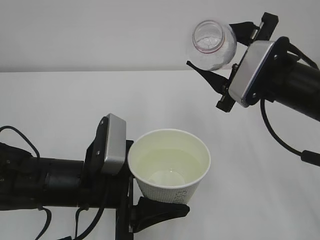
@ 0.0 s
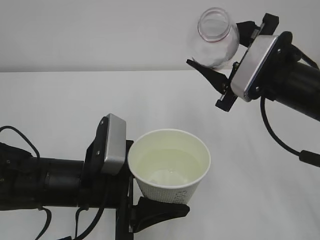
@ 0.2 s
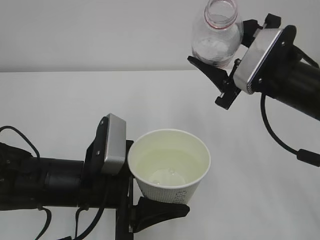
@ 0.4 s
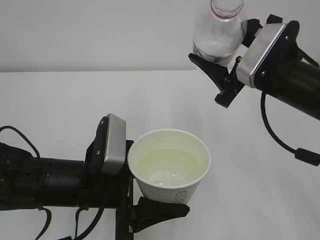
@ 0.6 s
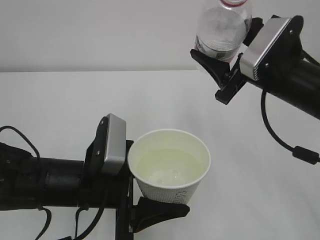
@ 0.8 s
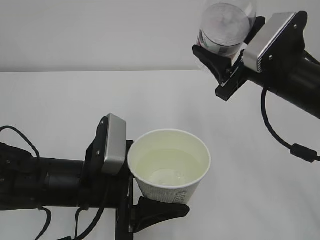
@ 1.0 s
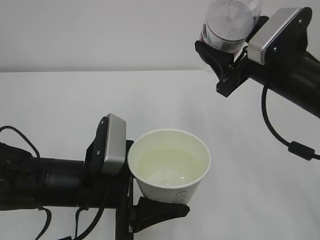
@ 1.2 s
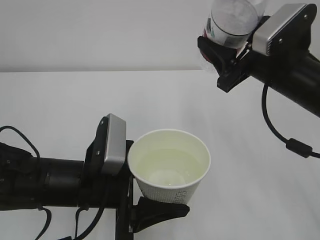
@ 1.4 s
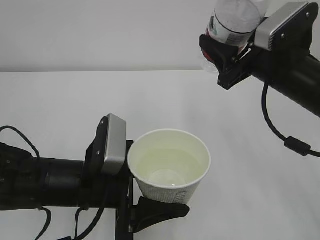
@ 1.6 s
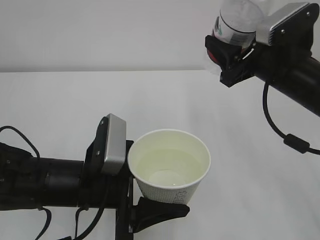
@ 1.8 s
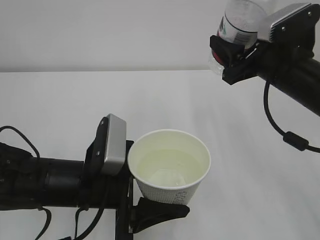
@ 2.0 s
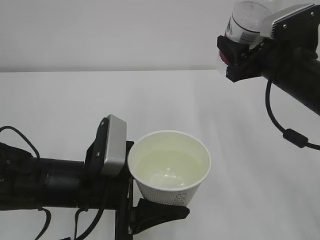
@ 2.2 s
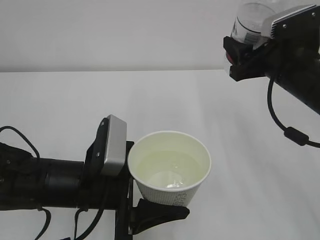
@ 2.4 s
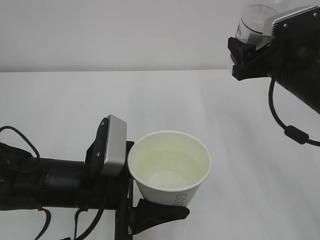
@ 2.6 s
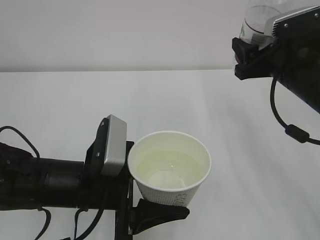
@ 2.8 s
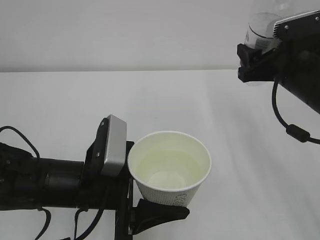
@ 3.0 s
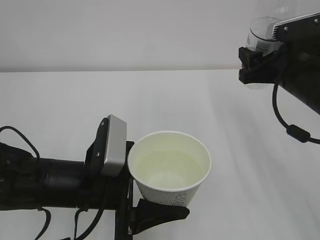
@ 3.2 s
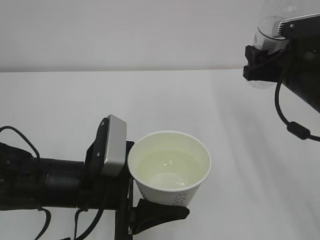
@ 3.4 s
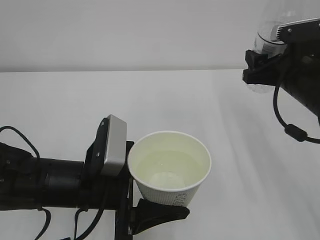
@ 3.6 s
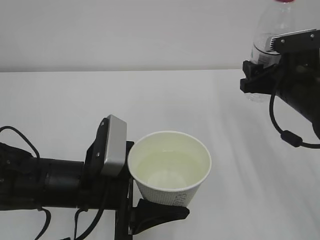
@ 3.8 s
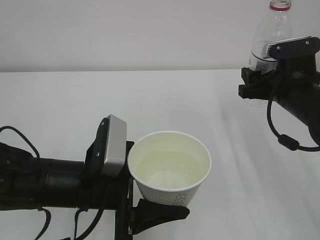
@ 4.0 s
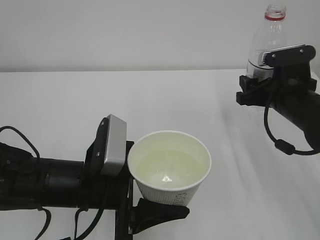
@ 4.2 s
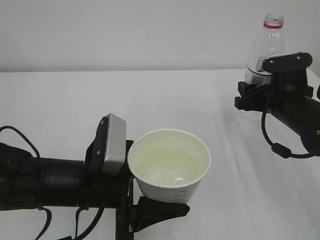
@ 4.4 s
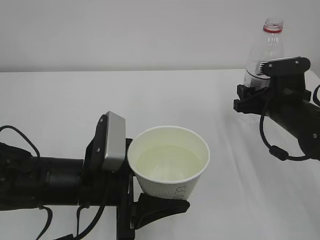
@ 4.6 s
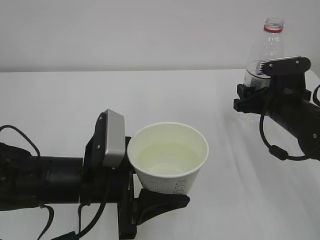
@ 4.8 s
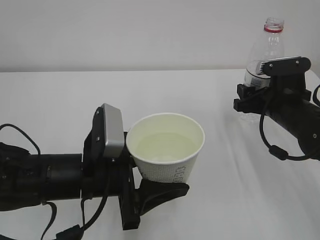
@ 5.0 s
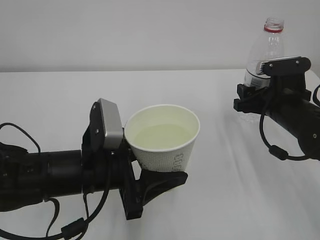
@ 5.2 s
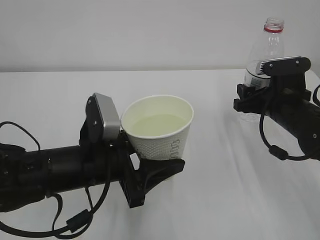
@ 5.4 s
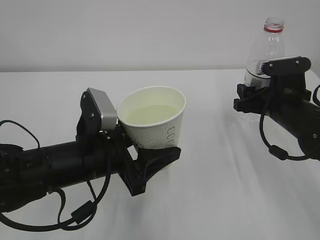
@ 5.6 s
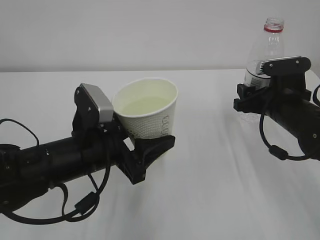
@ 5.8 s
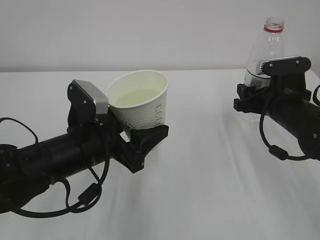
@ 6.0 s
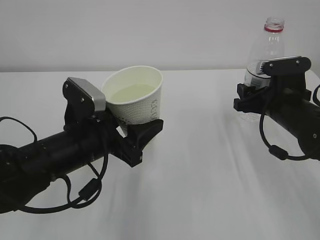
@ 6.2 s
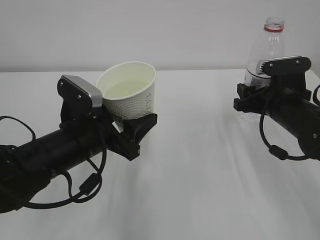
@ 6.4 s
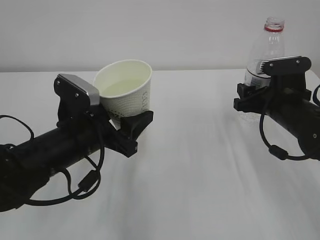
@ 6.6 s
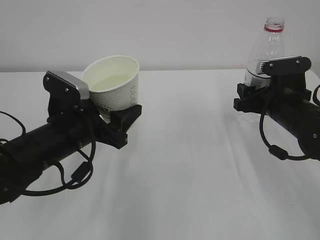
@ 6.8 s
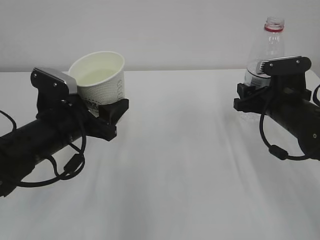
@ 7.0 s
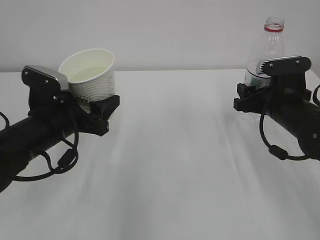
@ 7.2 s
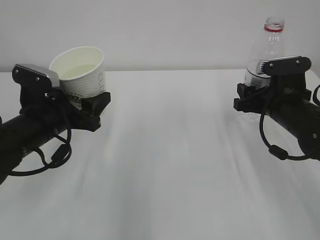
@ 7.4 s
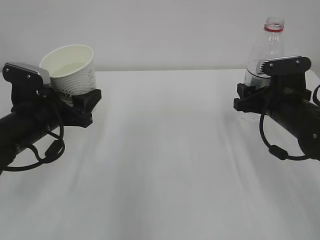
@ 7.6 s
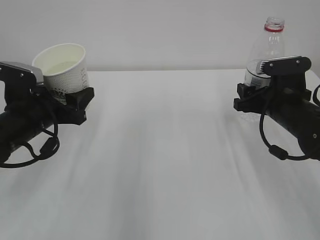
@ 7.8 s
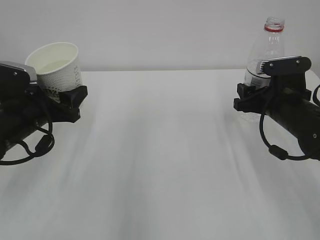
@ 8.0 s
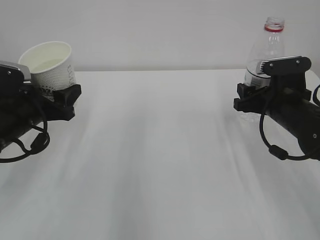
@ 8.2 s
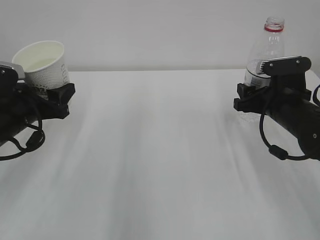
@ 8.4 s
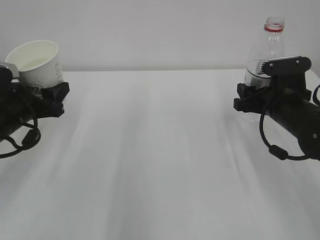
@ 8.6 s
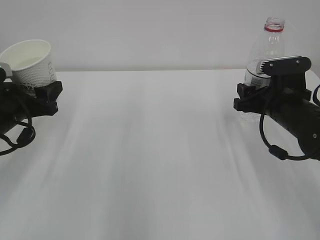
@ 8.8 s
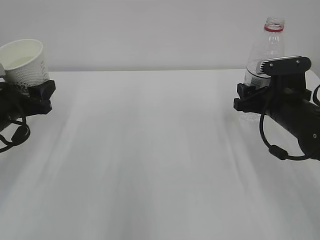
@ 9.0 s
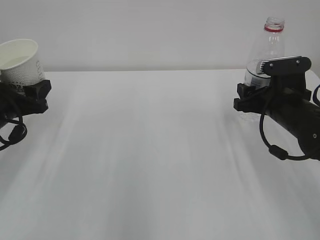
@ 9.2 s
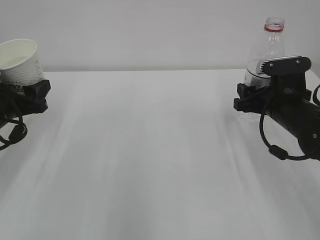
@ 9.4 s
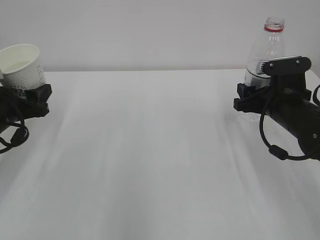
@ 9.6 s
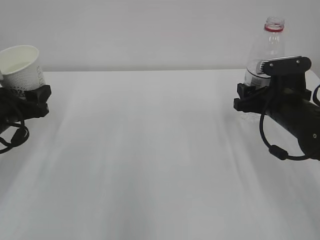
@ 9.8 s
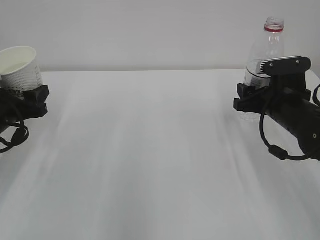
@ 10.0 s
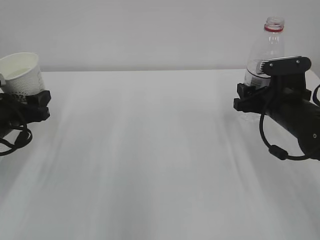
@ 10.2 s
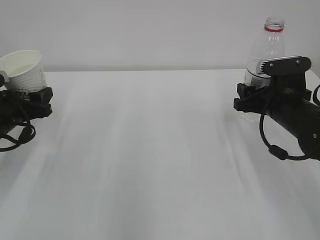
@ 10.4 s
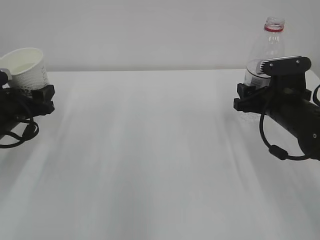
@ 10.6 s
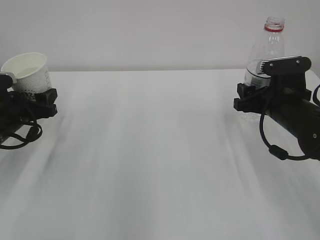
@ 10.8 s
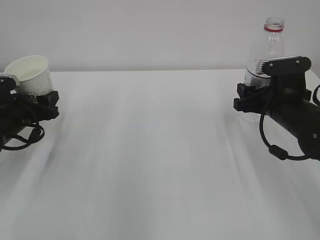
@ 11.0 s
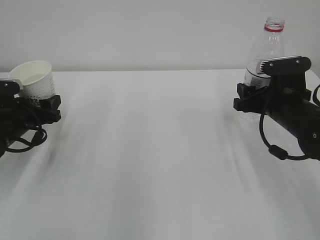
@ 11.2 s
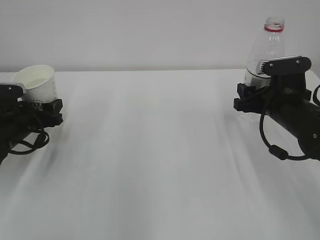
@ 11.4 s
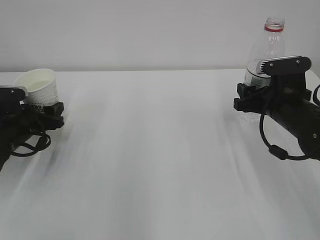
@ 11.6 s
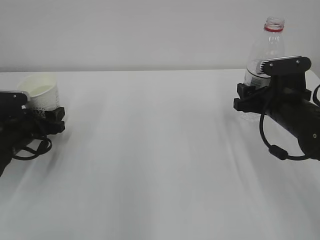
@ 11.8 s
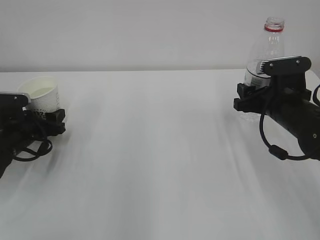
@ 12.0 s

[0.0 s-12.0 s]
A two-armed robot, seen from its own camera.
3.0 to 4.4 s: The right gripper travels downward by approximately 5 cm.
6.0 to 7.6 s: The left gripper moves to the left and forward, some 10 cm.
7.6 to 9.0 s: The left gripper heads to the left, covering approximately 10 cm.
9.0 to 10.4 s: The grippers make only small movements.
10.4 to 12.0 s: The left gripper goes approximately 5 cm downward.

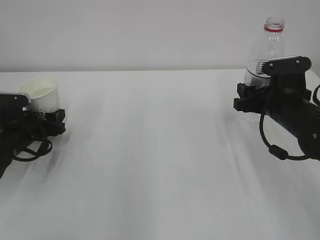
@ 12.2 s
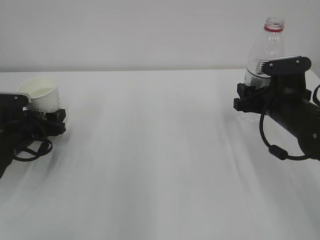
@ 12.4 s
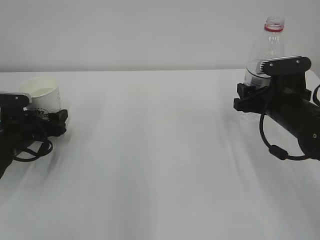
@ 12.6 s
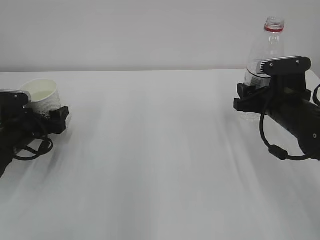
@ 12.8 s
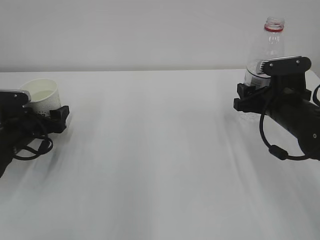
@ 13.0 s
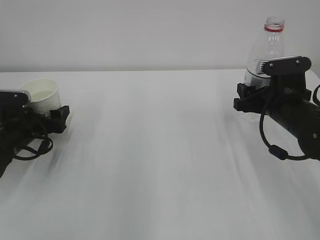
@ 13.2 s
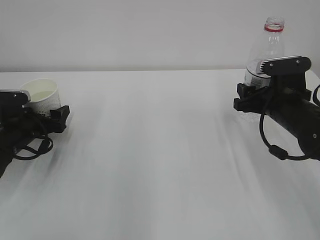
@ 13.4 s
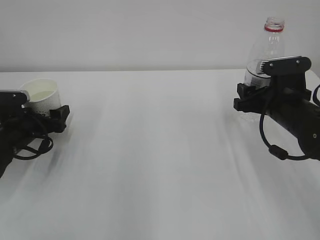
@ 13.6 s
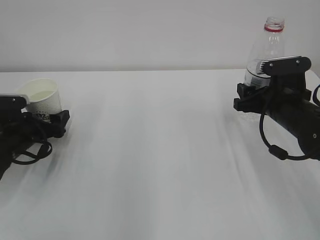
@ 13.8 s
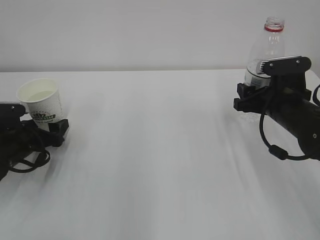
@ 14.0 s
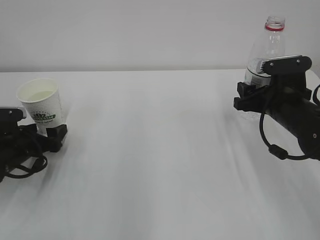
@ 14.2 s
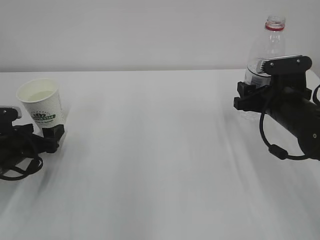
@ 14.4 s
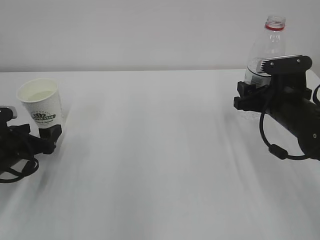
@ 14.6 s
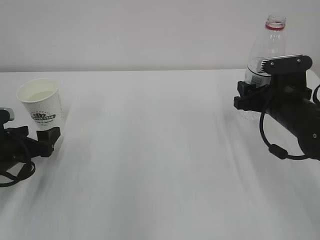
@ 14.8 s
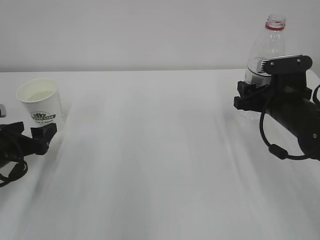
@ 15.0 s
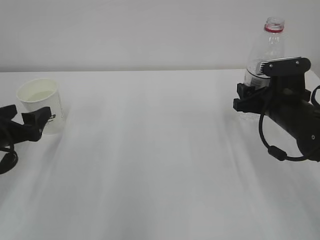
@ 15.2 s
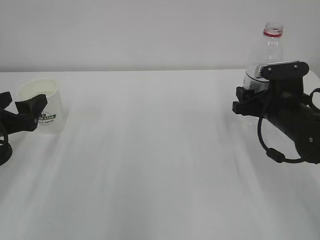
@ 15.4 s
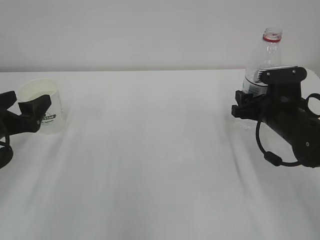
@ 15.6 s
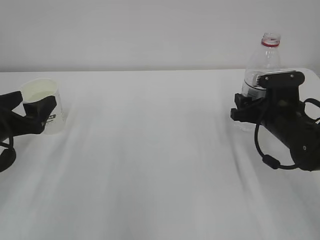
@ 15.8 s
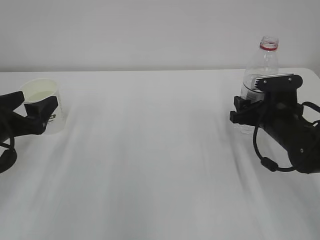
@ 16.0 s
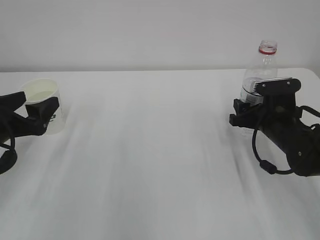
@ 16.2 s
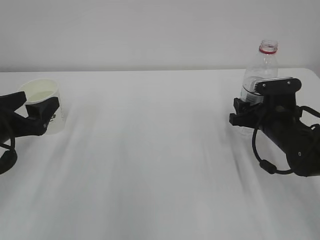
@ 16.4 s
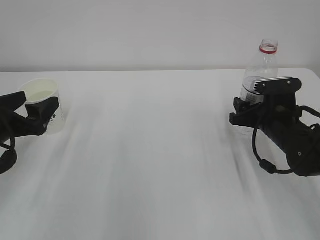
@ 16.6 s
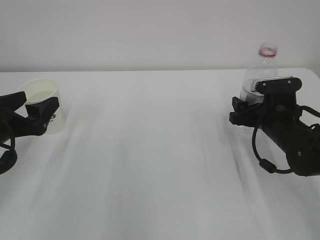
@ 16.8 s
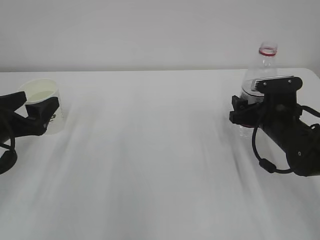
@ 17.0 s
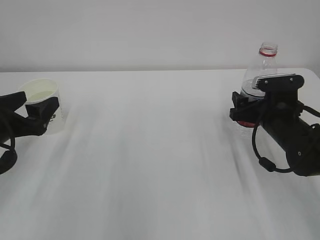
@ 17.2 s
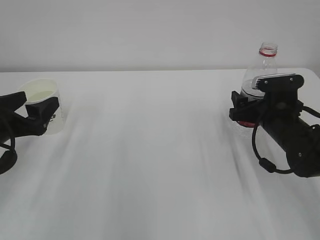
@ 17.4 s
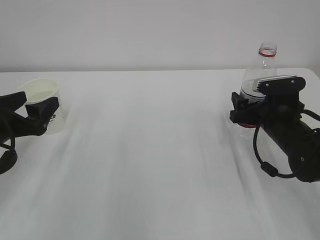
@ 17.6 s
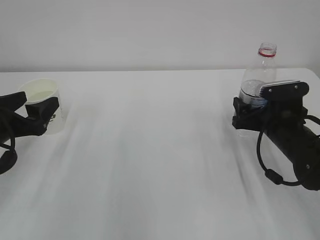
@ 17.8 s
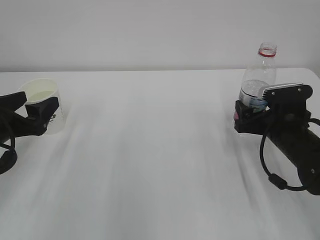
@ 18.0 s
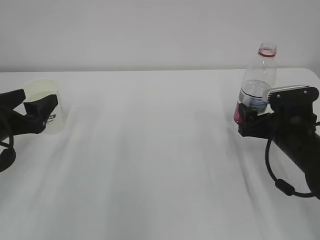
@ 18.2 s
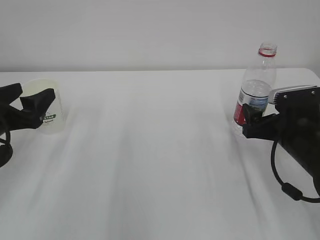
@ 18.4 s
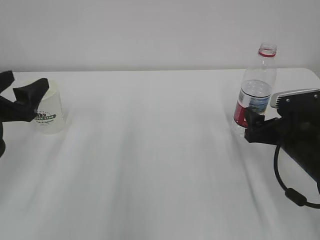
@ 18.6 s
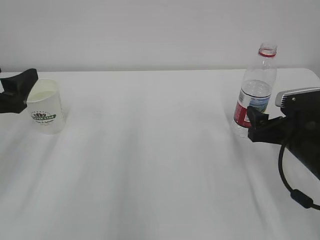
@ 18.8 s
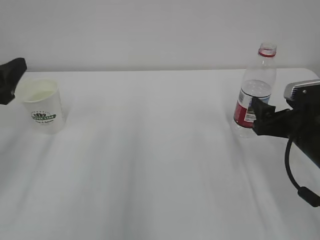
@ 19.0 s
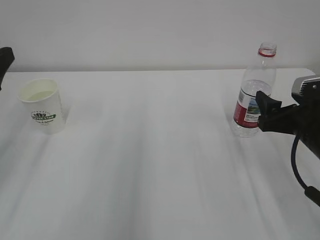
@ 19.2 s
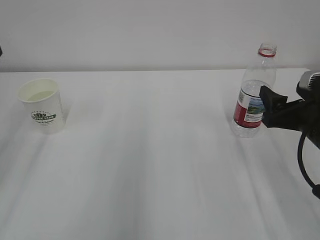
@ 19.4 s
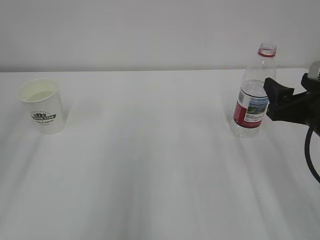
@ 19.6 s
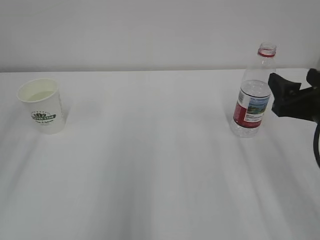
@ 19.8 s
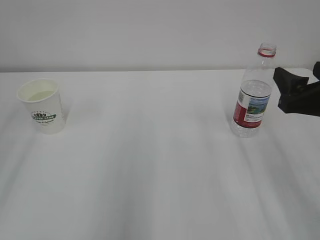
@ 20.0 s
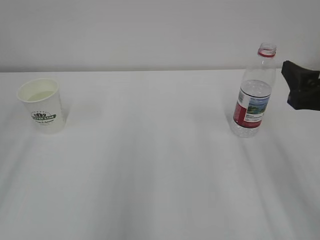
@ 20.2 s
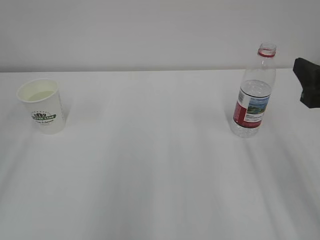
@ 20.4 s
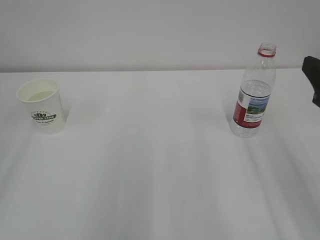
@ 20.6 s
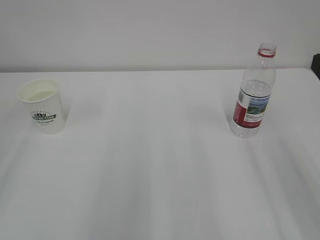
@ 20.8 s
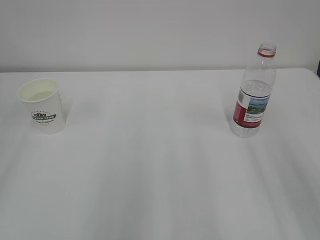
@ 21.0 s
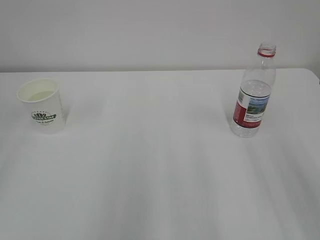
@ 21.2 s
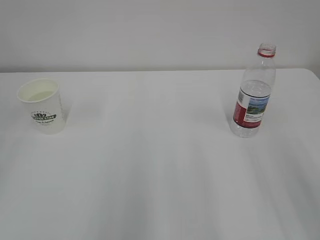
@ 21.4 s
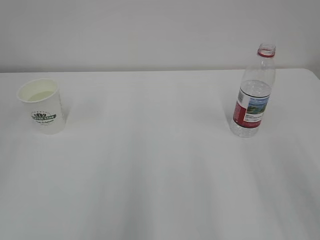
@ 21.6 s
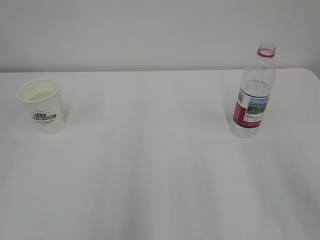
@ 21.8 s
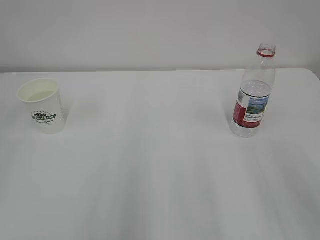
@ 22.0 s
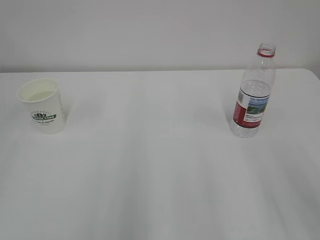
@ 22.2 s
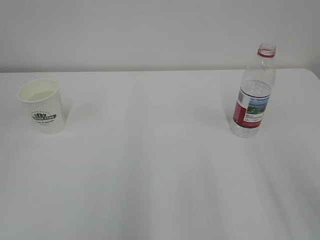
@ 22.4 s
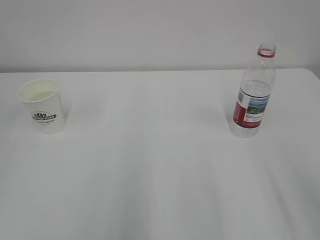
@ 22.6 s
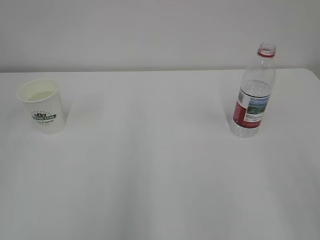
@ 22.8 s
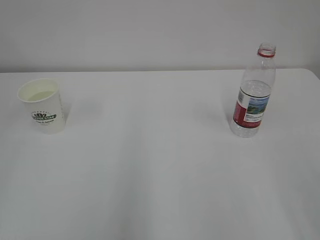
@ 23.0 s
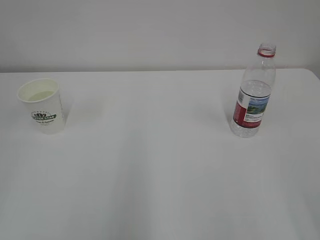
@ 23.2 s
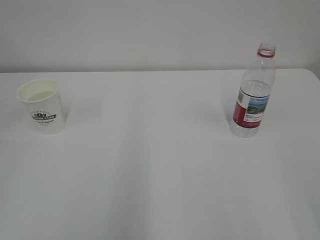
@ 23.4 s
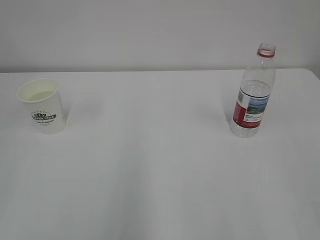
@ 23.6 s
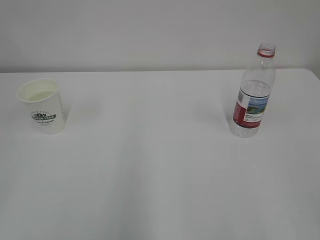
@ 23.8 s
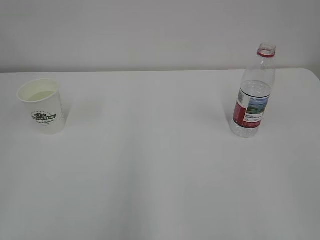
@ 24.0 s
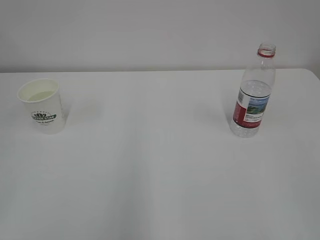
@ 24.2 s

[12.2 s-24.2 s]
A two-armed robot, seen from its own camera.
12.2 to 13.8 s: The left gripper opens its fingers.
13.8 to 15.2 s: The left gripper travels backward and upward by about 10 cm.
15.2 to 16.6 s: The grippers stay close to where they were, moving slightly.
16.6 to 18.2 s: The right gripper opens up.
18.2 to 19.8 s: The right gripper is displaced upward and backward by some 10 cm. The left gripper moves upward and backward, some 20 cm.
19.8 to 21.2 s: The right gripper moves backward and upward, approximately 10 cm.
